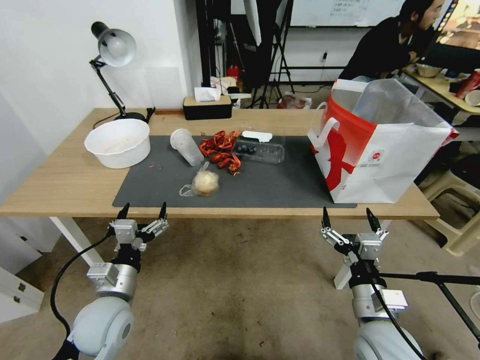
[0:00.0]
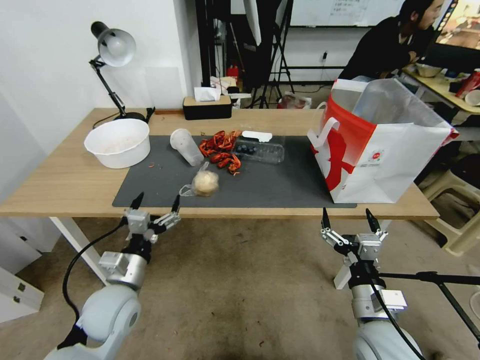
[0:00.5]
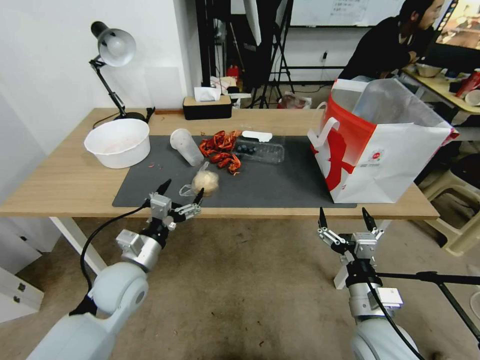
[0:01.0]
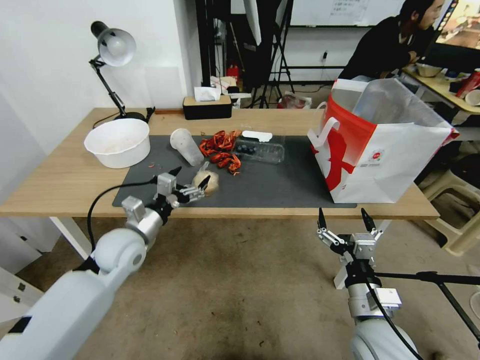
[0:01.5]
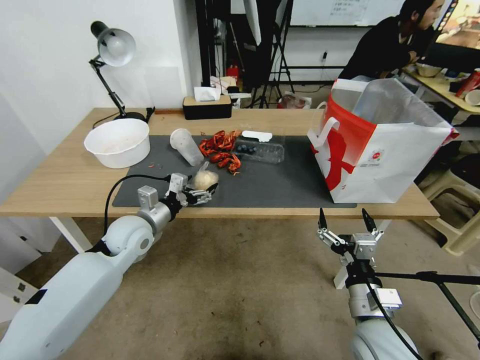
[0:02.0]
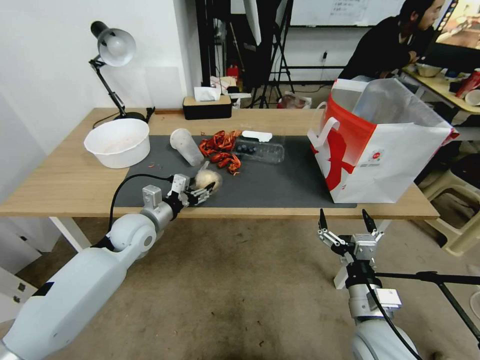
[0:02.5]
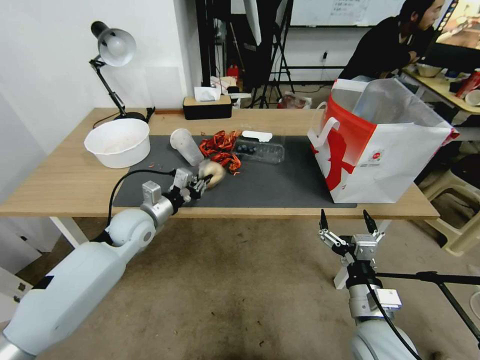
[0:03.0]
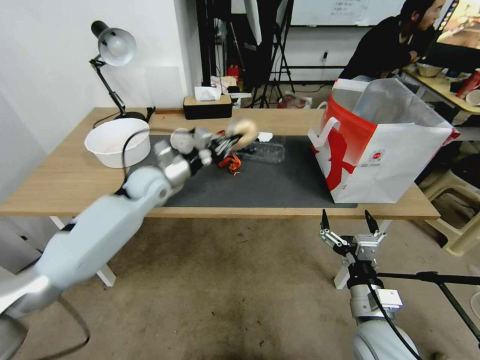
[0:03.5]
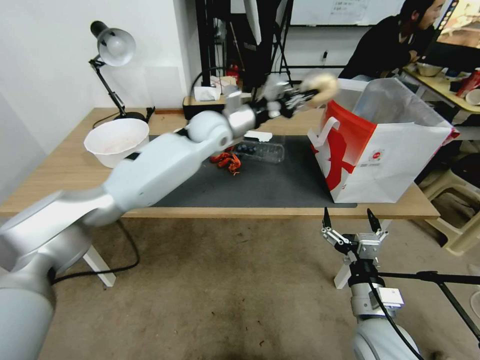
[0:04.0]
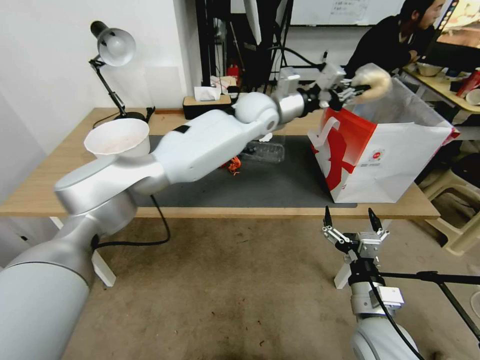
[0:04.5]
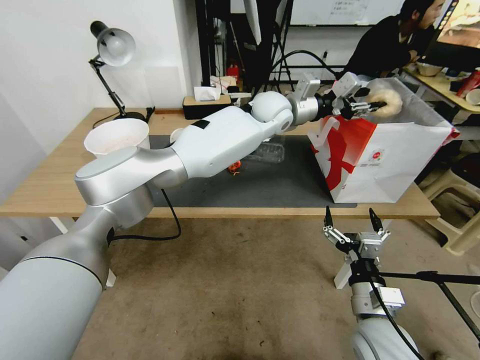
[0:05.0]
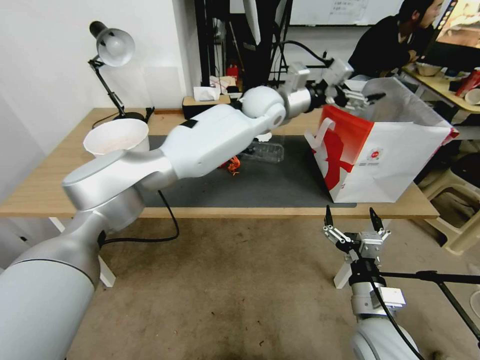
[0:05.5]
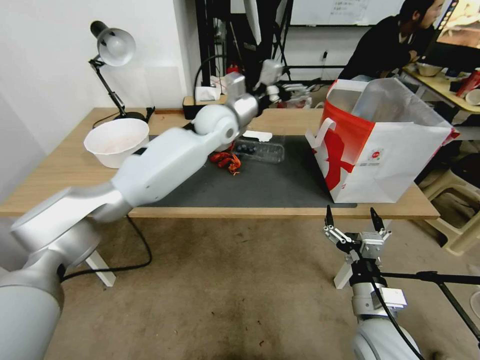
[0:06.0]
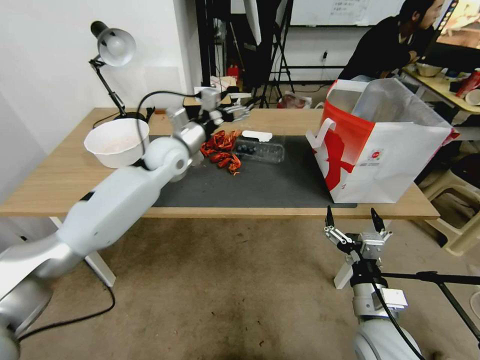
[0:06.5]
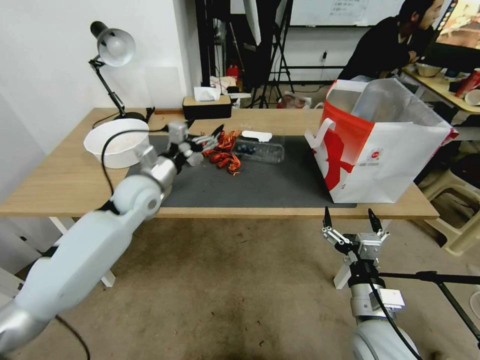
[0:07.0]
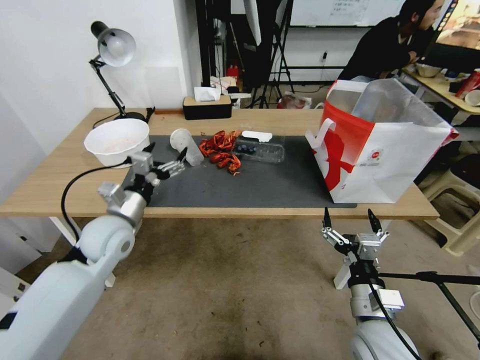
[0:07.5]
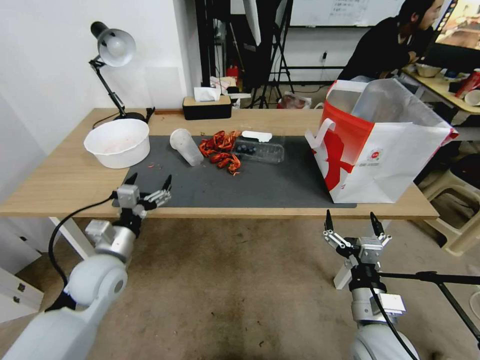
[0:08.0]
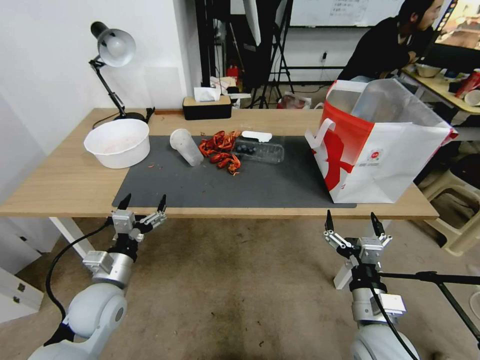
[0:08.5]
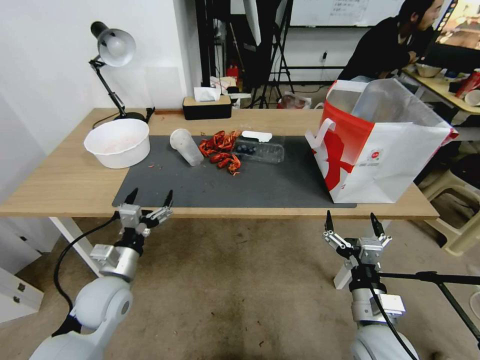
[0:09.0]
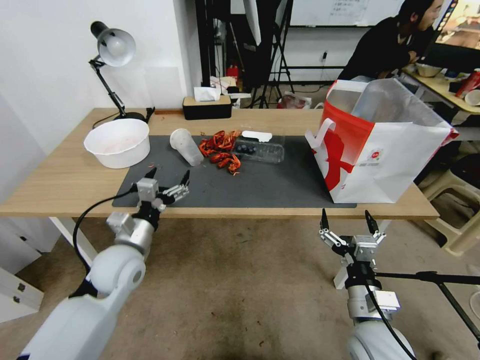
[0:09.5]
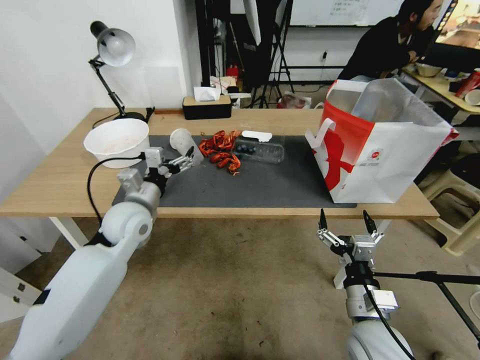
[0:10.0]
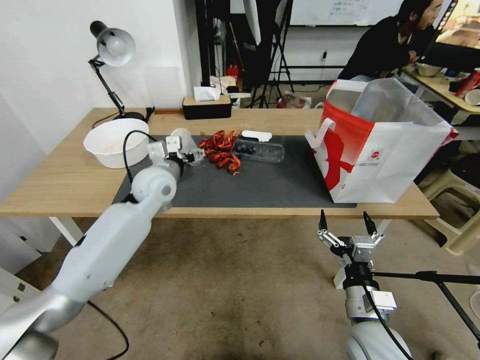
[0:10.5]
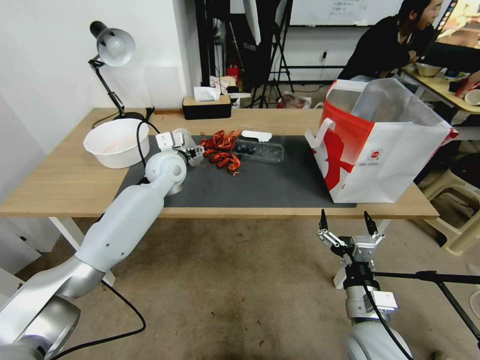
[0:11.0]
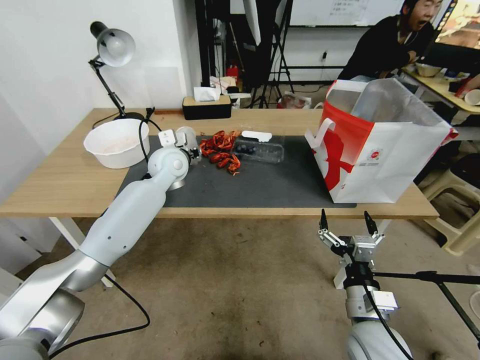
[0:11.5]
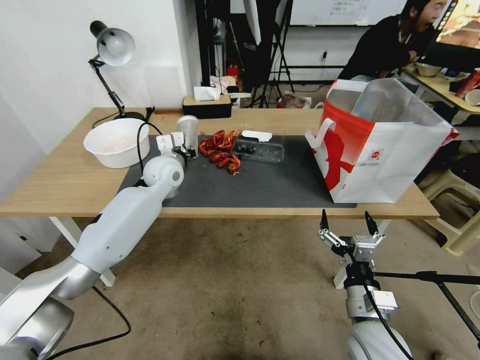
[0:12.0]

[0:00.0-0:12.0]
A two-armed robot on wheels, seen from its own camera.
0:00.0 to 0:02.0: The left gripper travels forward by roughly 15 cm.
0:02.0 to 0:04.0: The left gripper heads to the right, forward and upward, covering approximately 30 cm, and closes its fingers.
0:04.0 to 0:06.0: The left gripper goes to the right and returns, approximately 15 cm each way, and opens its fingers.
0:06.0 to 0:08.0: The left gripper heads backward, to the left and downward, covering about 40 cm.
0:08.0 to 0:10.0: The left gripper moves forward and upward, about 10 cm.
0:10.0 to 0:12.0: The left gripper heads forward, covering approximately 15 cm, and closes.

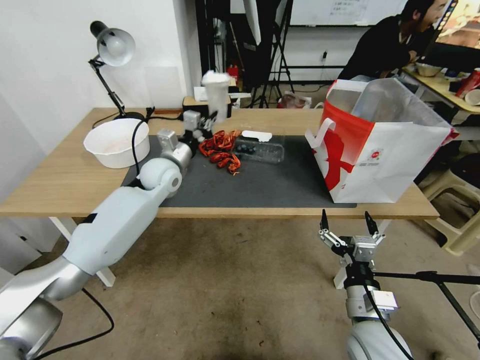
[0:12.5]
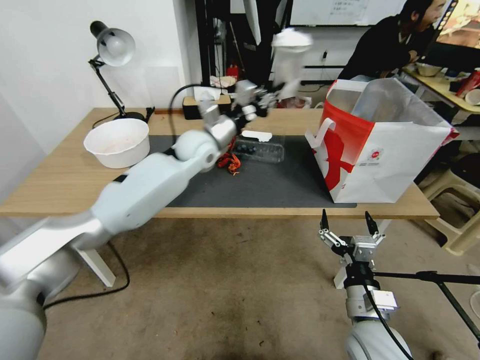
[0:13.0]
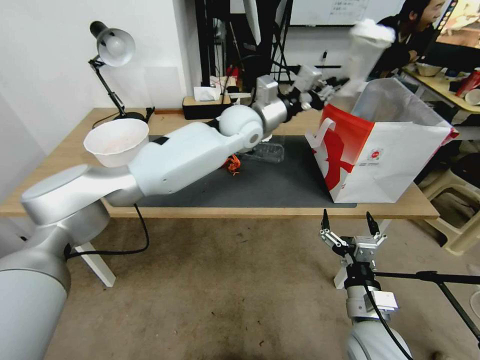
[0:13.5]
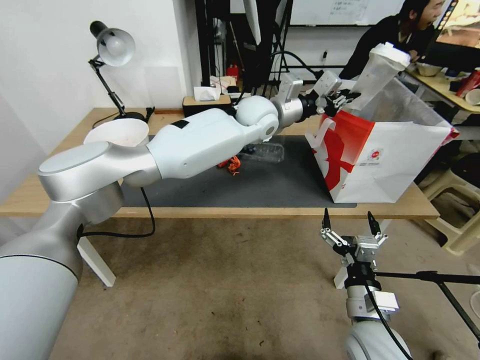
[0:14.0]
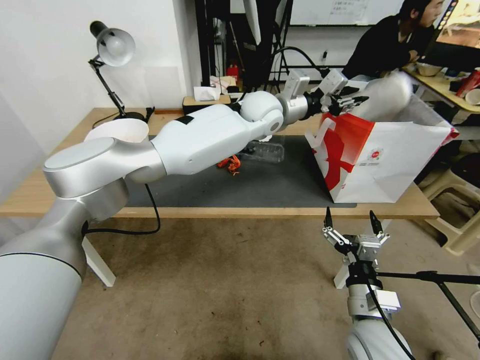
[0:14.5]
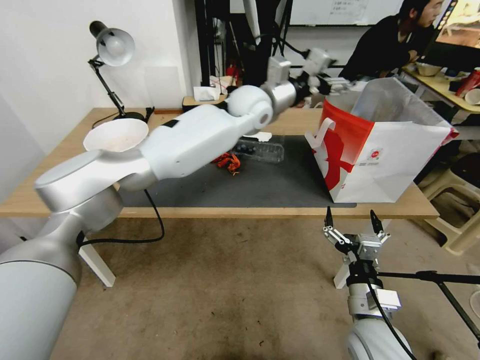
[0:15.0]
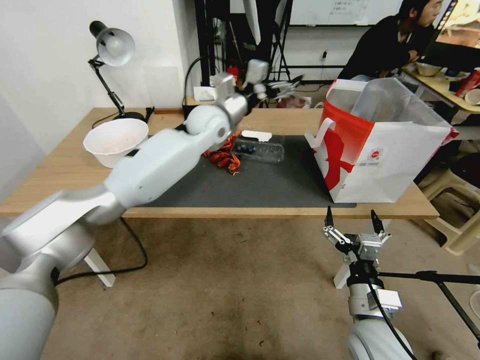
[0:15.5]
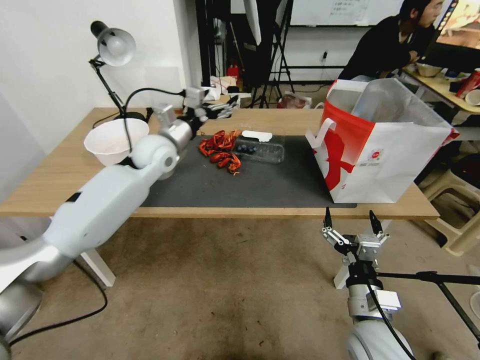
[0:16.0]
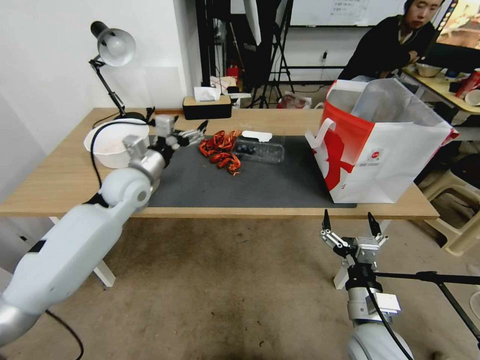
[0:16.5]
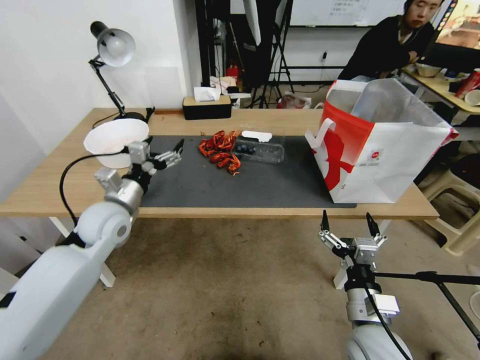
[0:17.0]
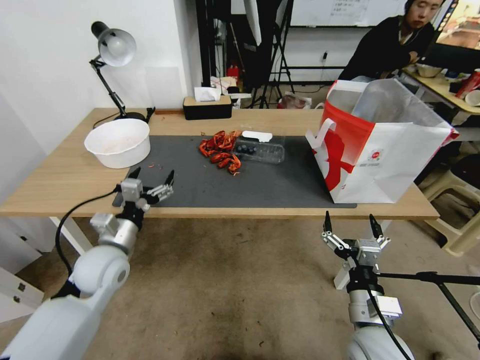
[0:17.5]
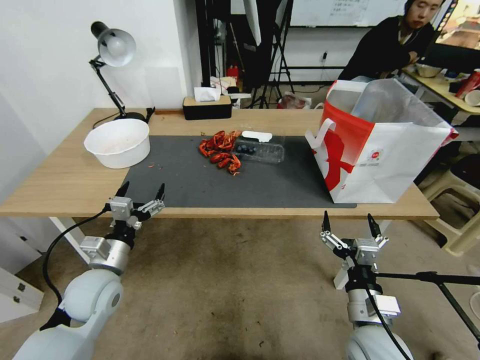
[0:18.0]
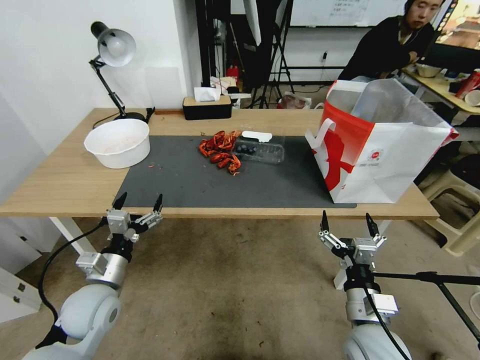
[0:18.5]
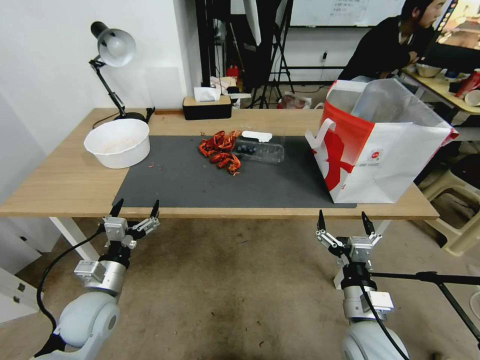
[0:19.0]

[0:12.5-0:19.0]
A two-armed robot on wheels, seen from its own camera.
0:12.5 to 0:14.5: The left gripper goes some 30 cm to the right and upward.
0:14.5 to 0:17.0: The left gripper travels to the left, backward and downward by some 40 cm, and opens up.
0:17.0 to 0:19.0: The left gripper heads backward and downward, covering some 20 cm.

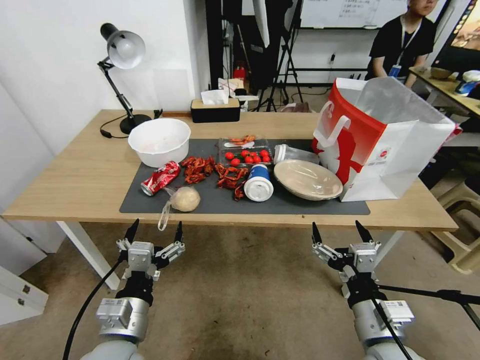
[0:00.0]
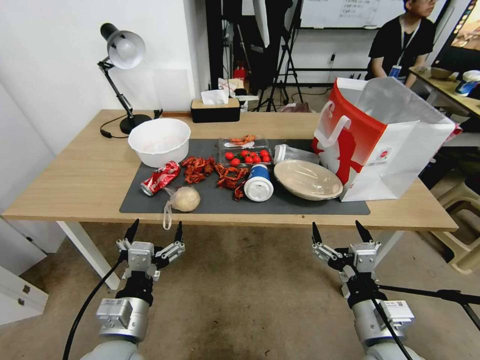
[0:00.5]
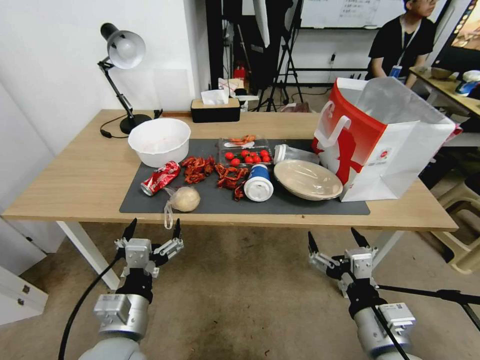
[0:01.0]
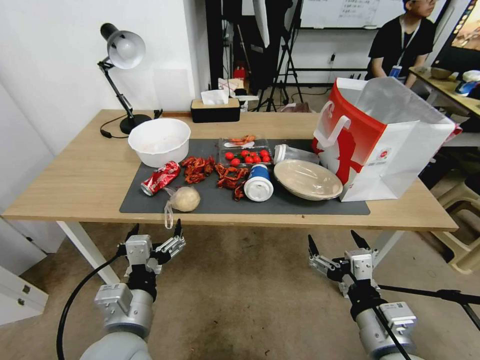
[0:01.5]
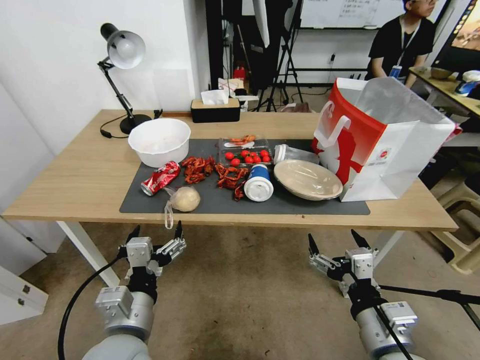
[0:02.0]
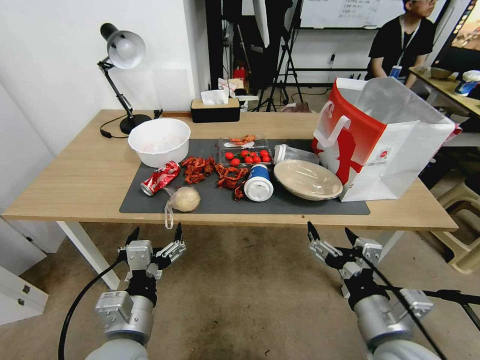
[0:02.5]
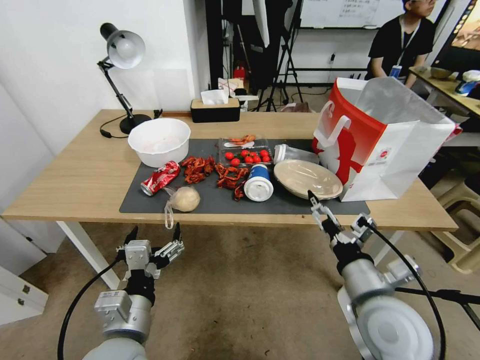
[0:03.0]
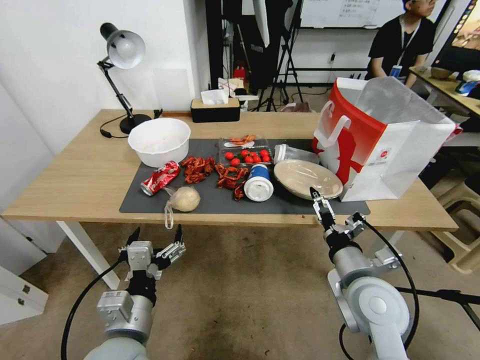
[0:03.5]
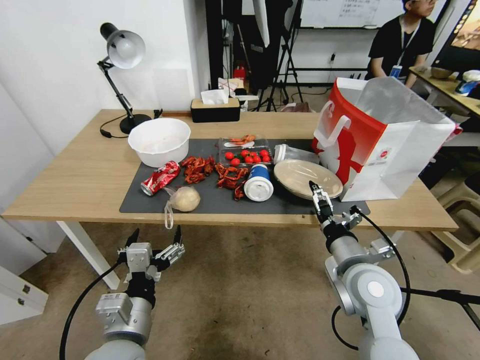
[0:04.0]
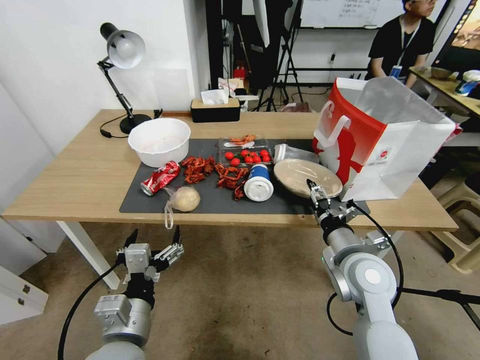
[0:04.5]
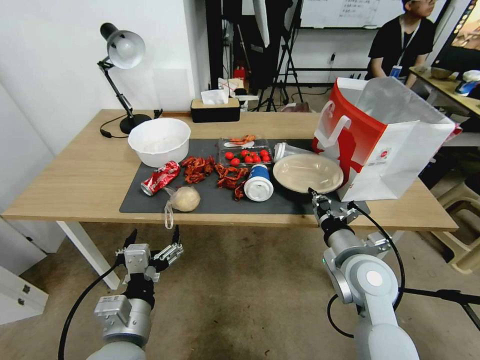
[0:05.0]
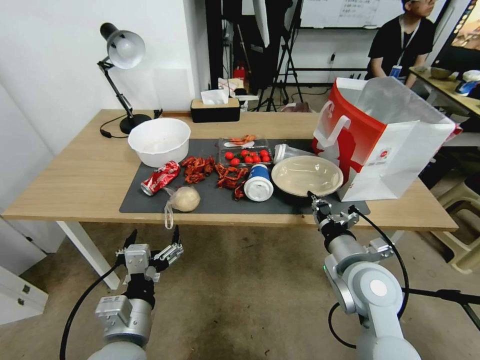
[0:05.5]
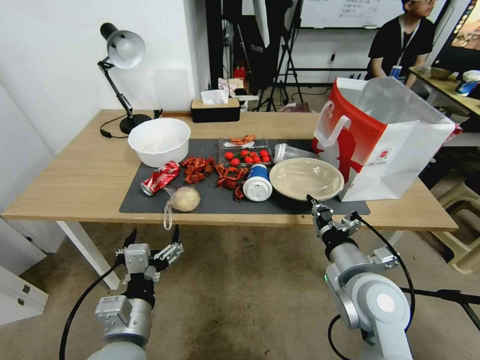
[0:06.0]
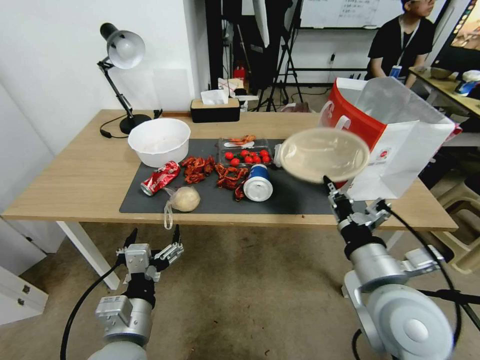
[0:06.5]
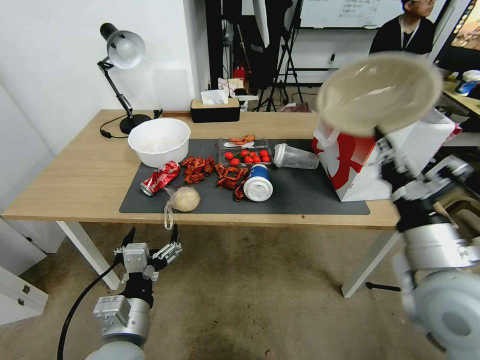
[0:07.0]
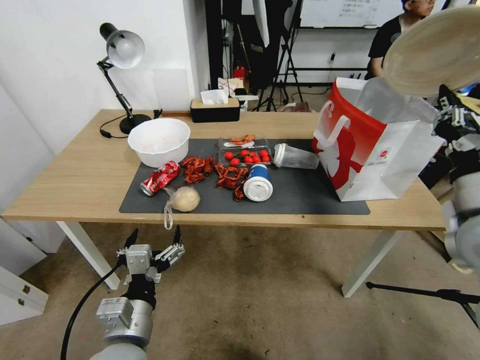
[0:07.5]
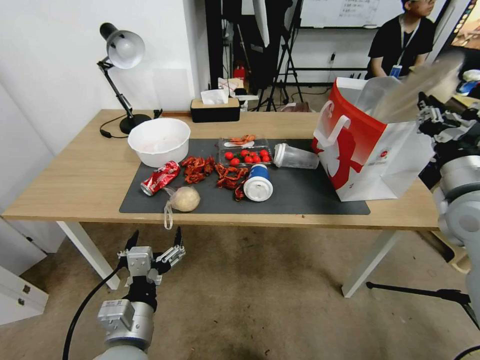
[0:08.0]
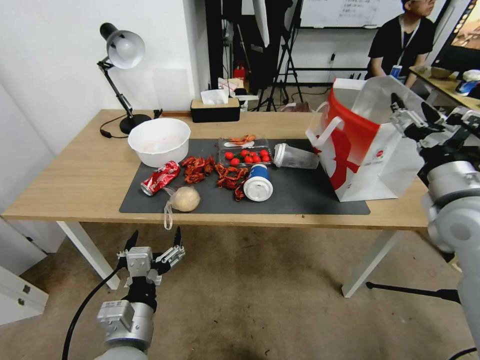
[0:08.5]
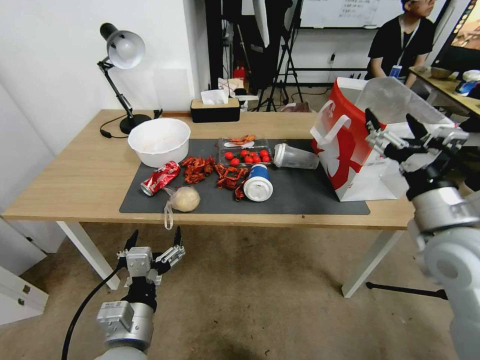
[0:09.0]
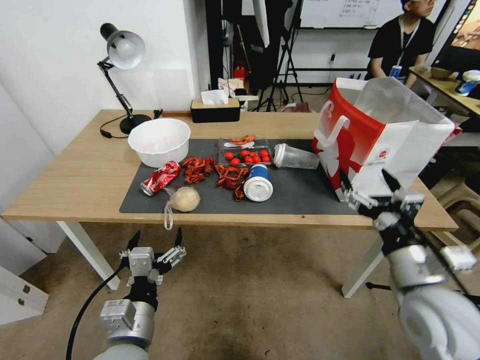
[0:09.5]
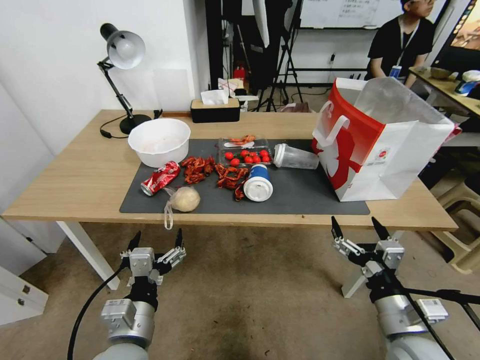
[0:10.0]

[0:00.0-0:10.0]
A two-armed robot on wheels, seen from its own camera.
0:02.0 to 0:04.0: The right gripper shifts about 15 cm forward.
0:04.0 to 0:06.0: The right gripper closes up.
0:06.0 to 0:08.0: The right gripper heads to the right, upward and forward, covering roughly 20 cm.
0:08.0 to 0:10.0: The right gripper goes some 25 cm downward, backward and to the left, and opens its fingers.
